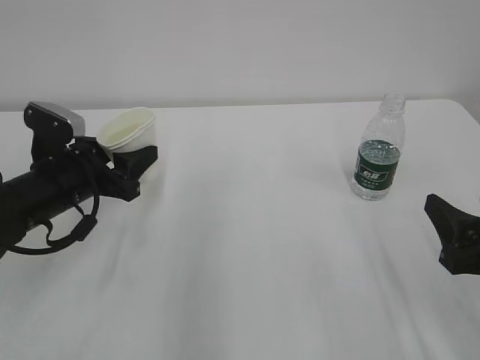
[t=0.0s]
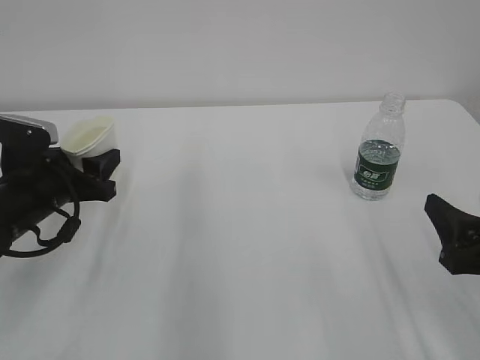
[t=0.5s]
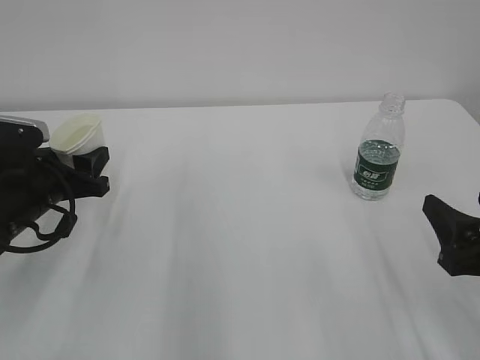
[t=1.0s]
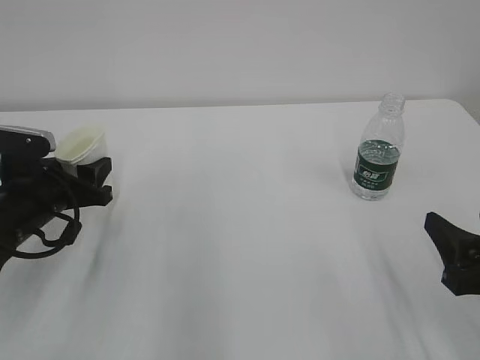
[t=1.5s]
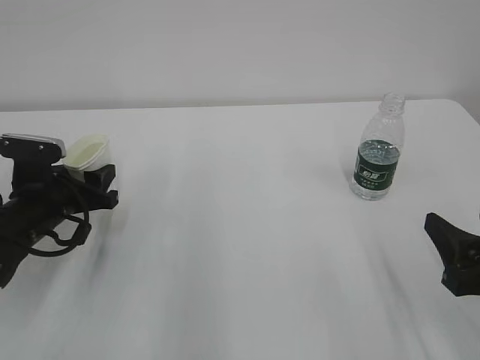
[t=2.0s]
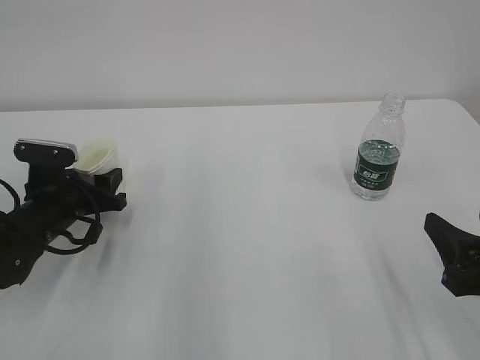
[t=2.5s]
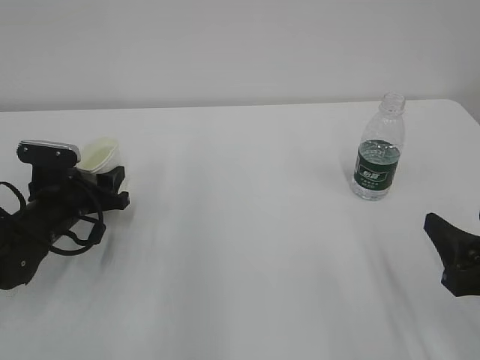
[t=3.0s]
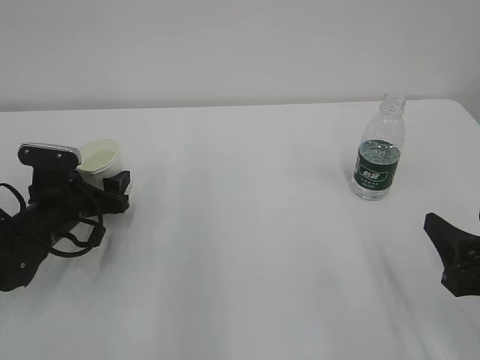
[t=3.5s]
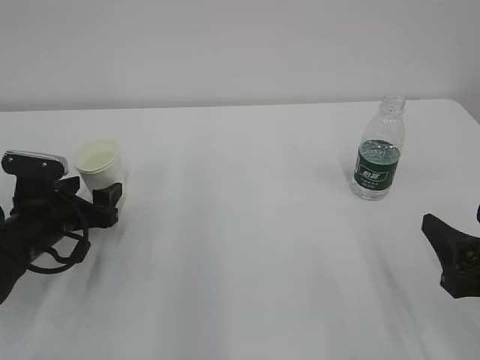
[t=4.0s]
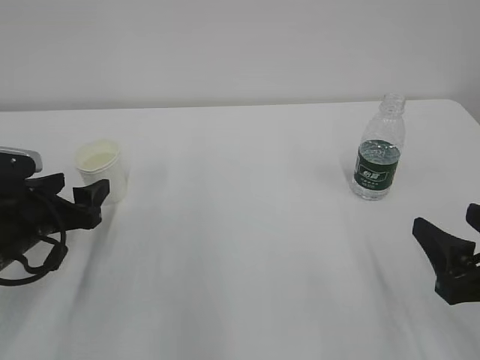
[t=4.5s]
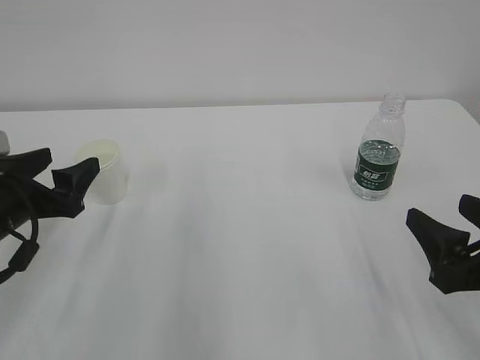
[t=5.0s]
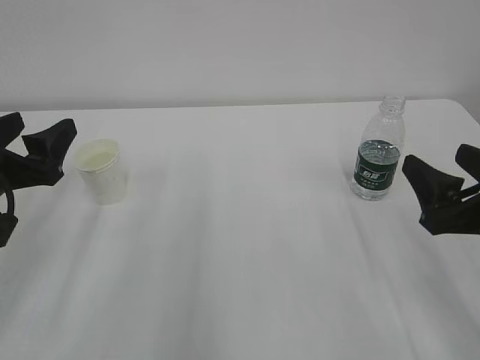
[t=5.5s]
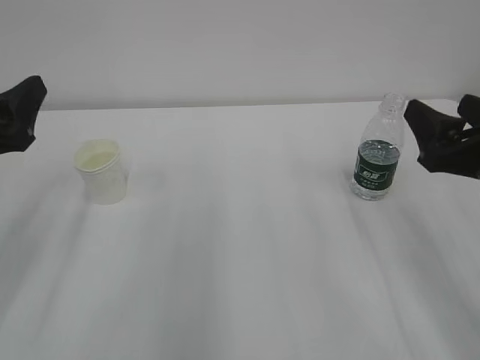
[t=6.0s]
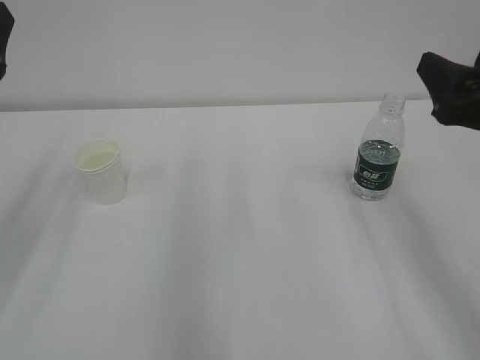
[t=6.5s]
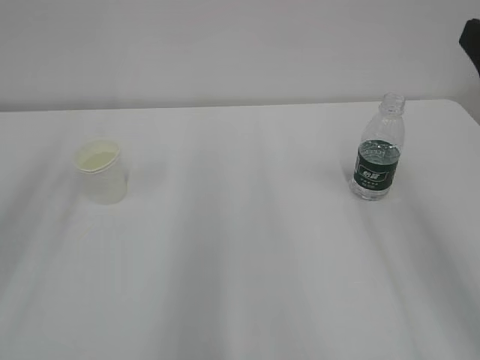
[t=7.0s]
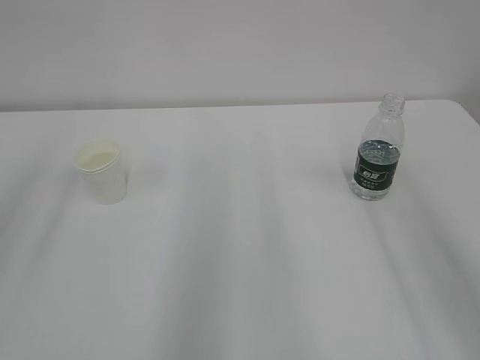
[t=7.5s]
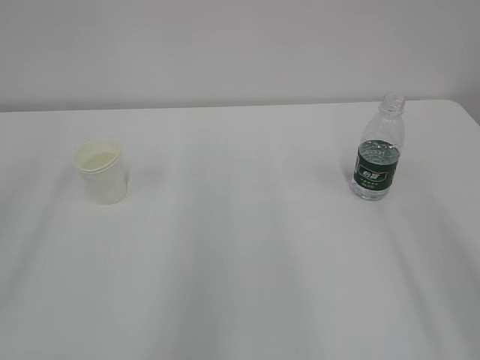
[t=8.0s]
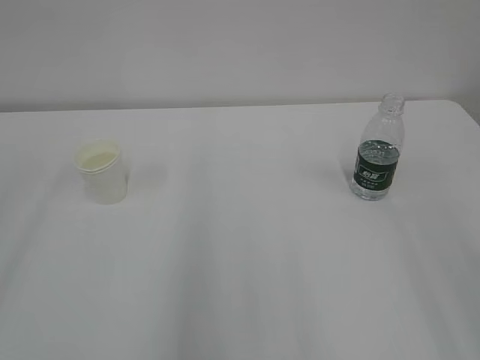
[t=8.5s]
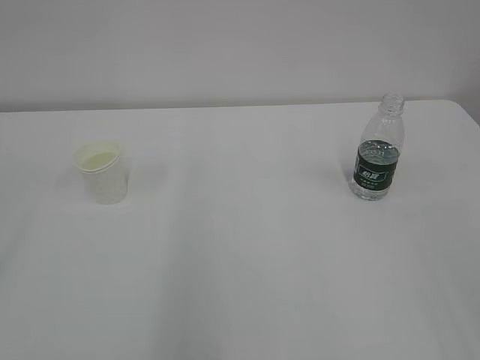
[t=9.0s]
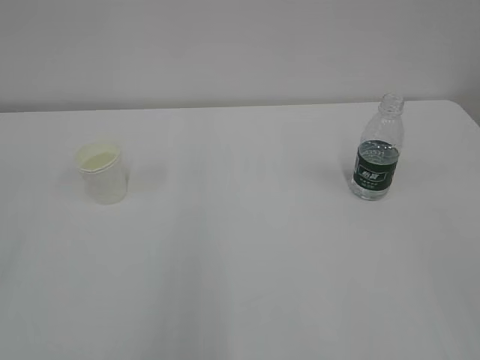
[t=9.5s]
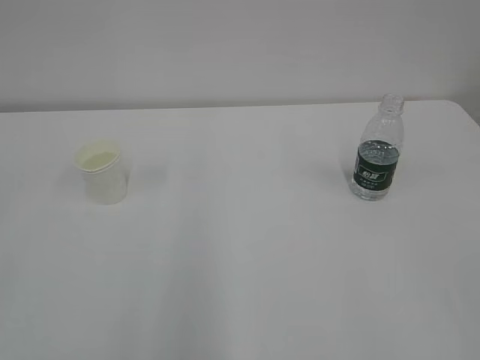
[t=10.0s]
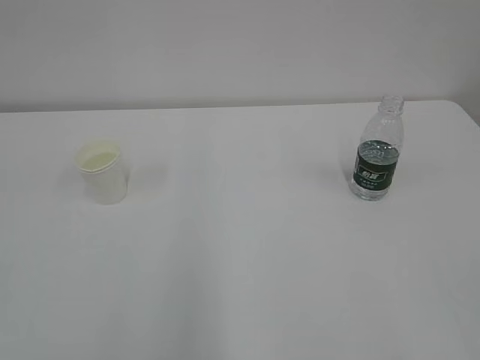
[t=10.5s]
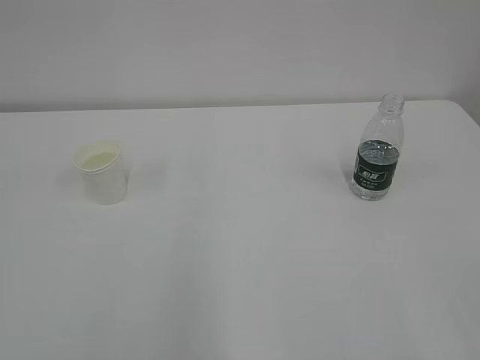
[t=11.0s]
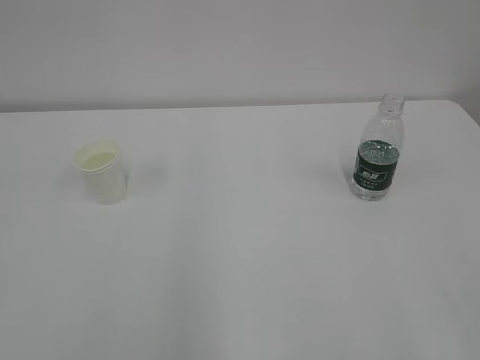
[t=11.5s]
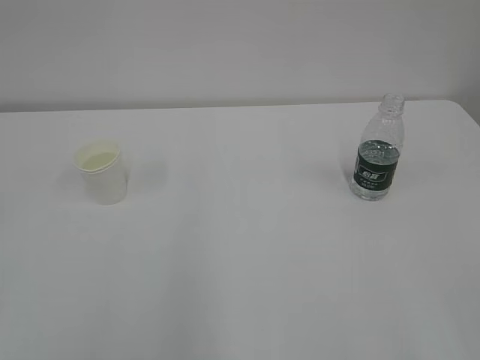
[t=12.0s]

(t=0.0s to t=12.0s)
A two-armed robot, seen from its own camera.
t=0.0s - t=2.0s: The left gripper ends up about 5 cm from where it was.
t=2.0s - t=4.0s: The left gripper opens.
t=4.0s - t=6.0s: The right gripper heads forward and upward, covering about 10 cm, while the left gripper travels upward and backward by about 15 cm.
t=6.0s - t=8.0s: The left gripper moves upward and backward, approximately 20 cm. Meanwhile the right gripper is displaced backward and upward by roughly 20 cm.

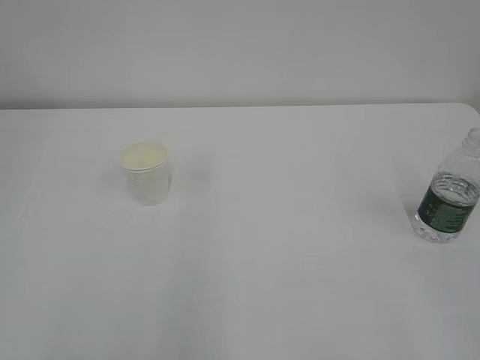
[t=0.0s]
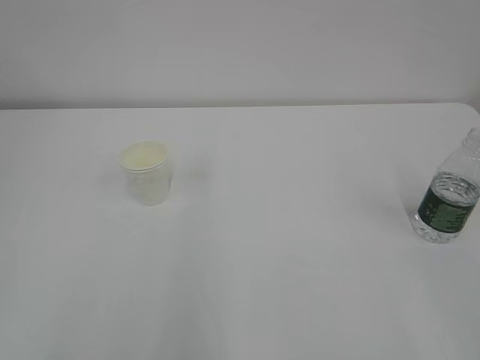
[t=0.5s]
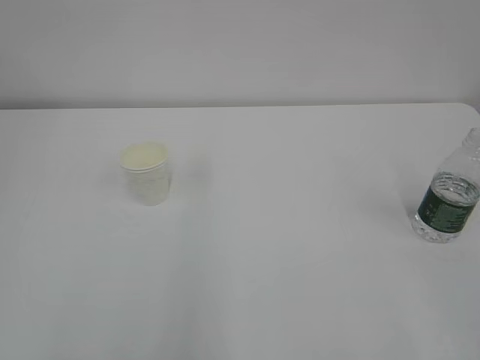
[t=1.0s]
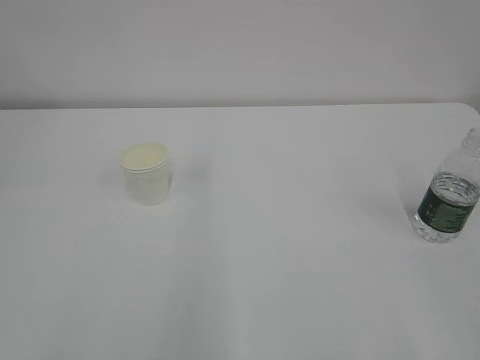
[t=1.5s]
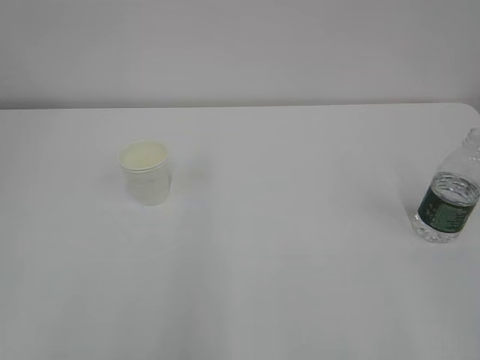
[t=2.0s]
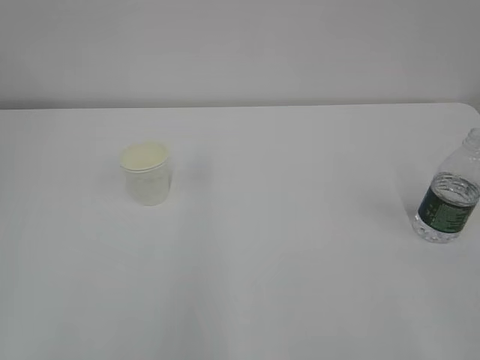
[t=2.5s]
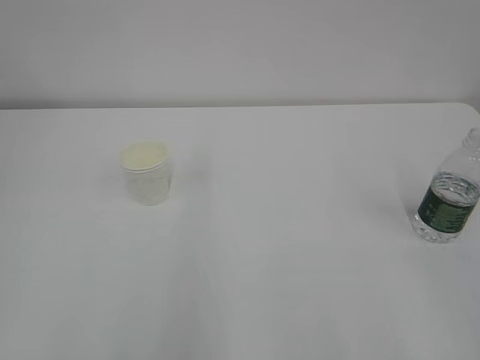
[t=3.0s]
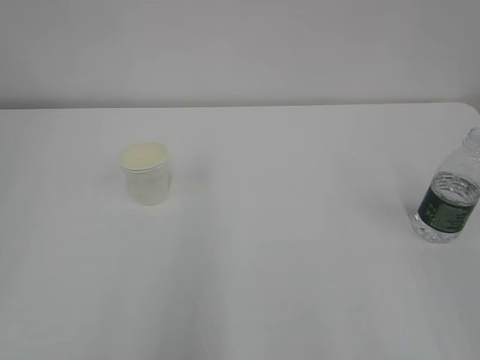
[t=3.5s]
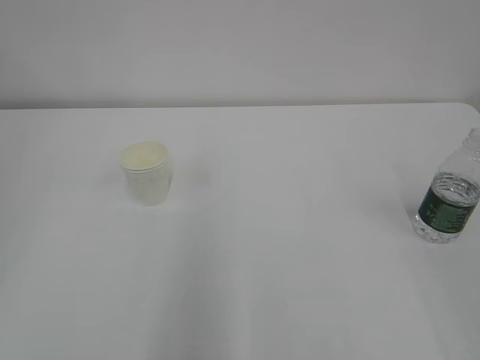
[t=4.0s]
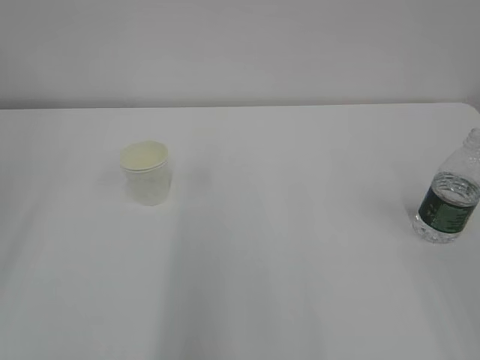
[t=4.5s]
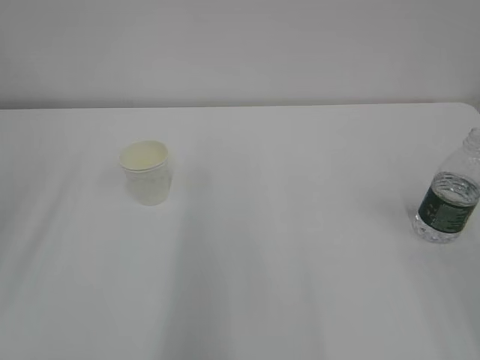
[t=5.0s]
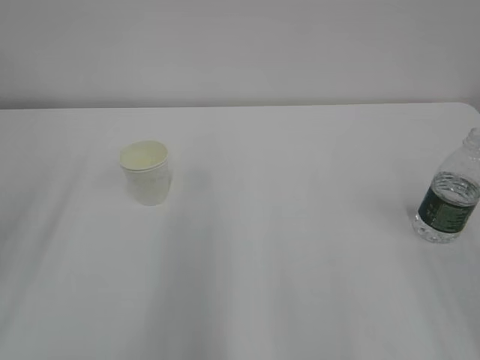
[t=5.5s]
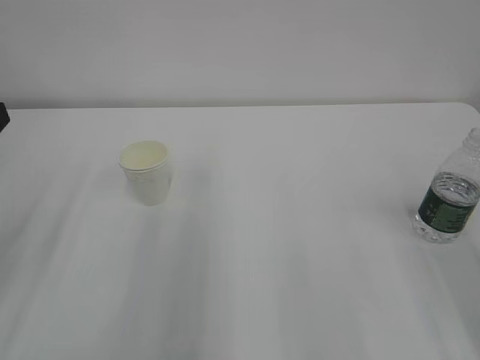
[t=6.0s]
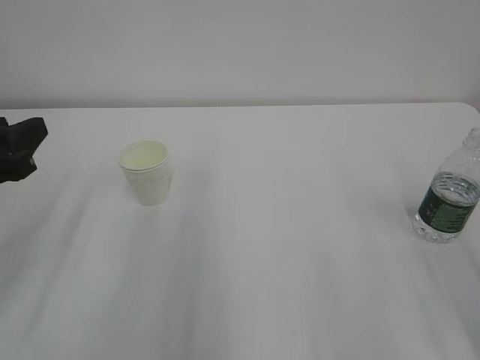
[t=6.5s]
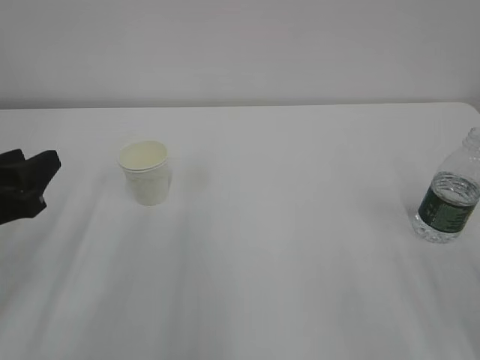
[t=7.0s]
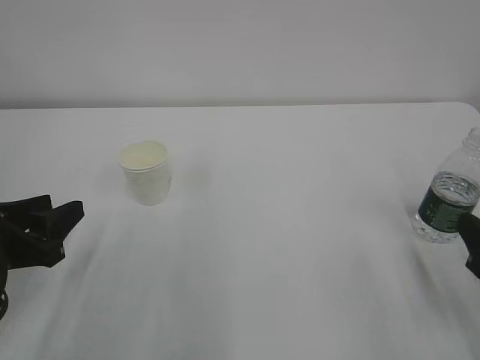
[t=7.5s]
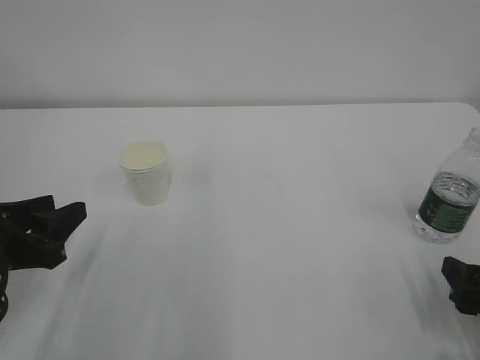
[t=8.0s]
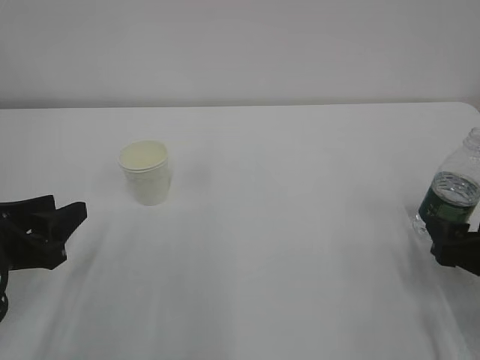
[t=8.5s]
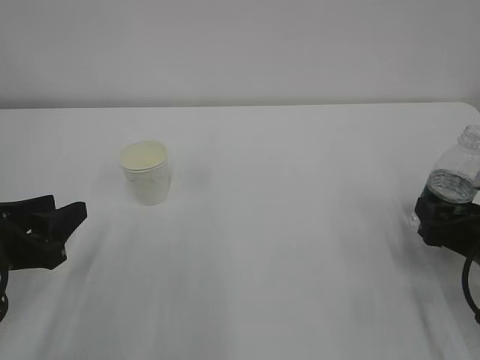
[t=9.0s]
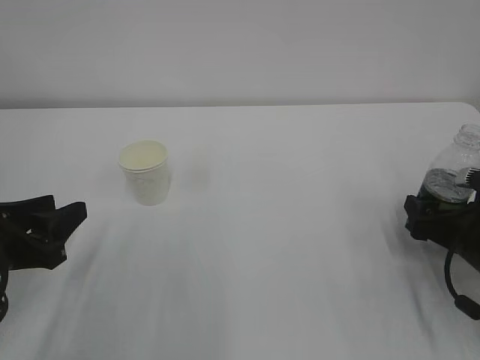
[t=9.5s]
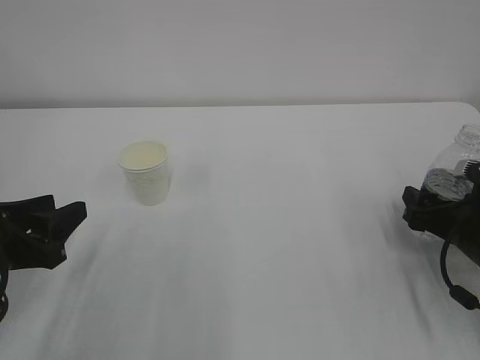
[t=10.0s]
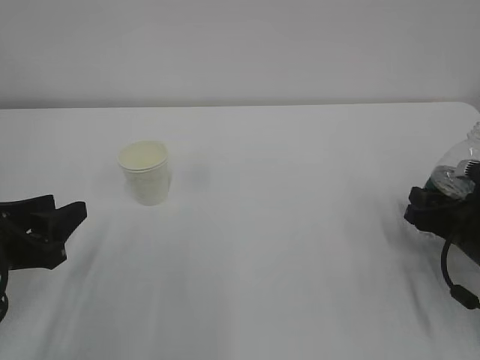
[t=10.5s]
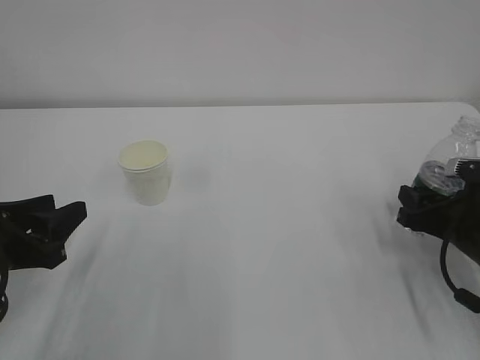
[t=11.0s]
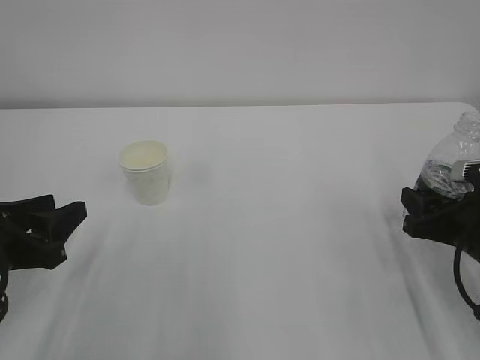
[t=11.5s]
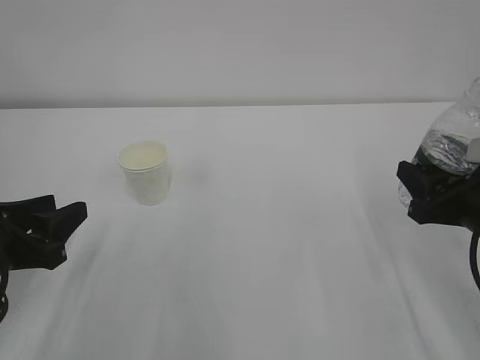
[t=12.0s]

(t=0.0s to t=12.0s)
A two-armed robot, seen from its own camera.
t=6.0s - t=8.0s: The left gripper travels downward by about 10 cm, while the right gripper is displaced downward by some 20 cm, and closes, then opens again.
t=8.0s - t=10.0s: The right gripper travels forward by approximately 10 cm.
t=10.0s - t=12.0s: The right gripper goes about 5 cm upward, and closes up.

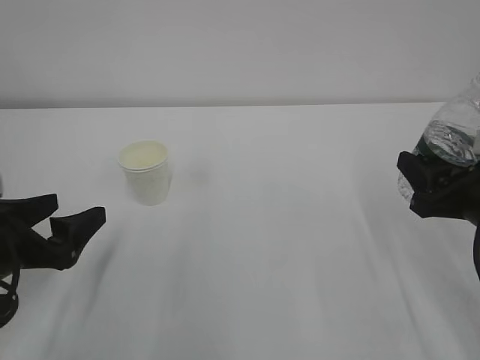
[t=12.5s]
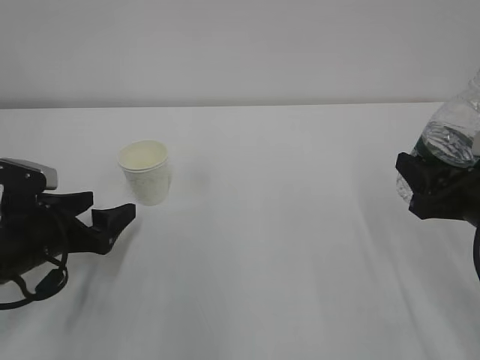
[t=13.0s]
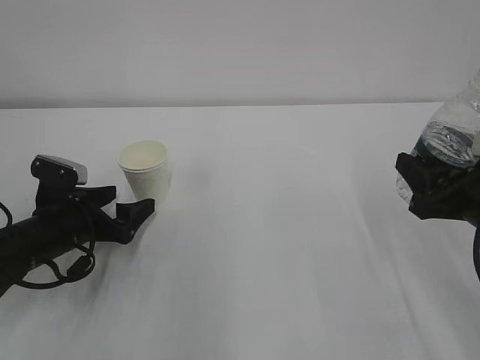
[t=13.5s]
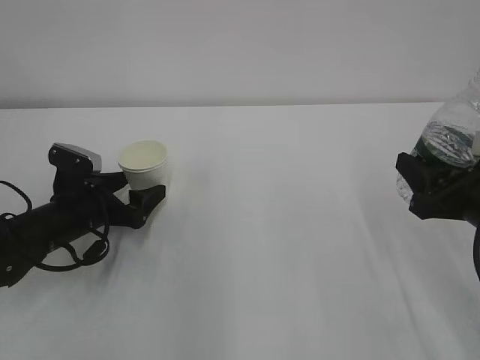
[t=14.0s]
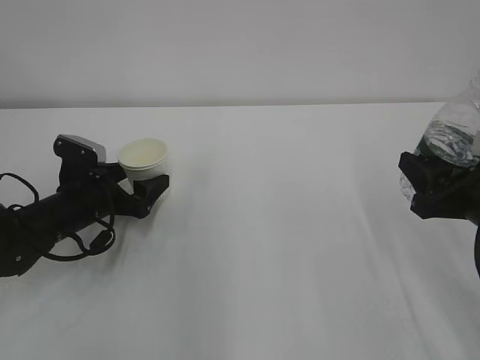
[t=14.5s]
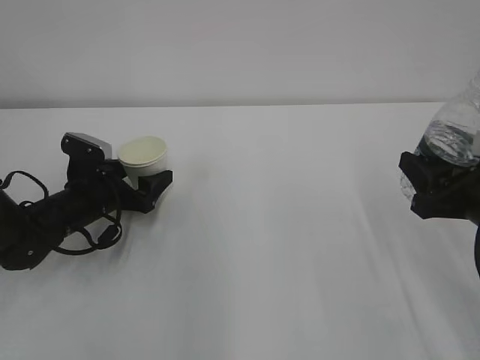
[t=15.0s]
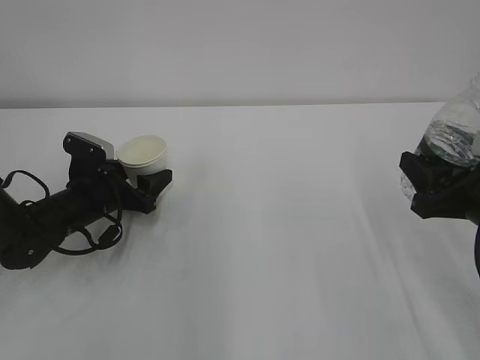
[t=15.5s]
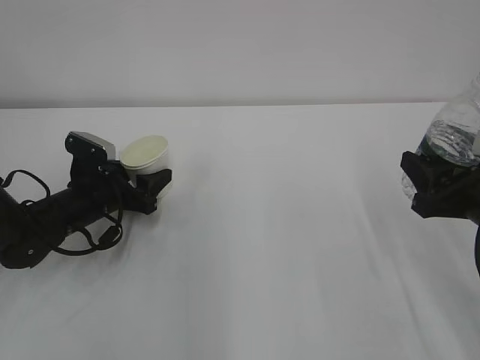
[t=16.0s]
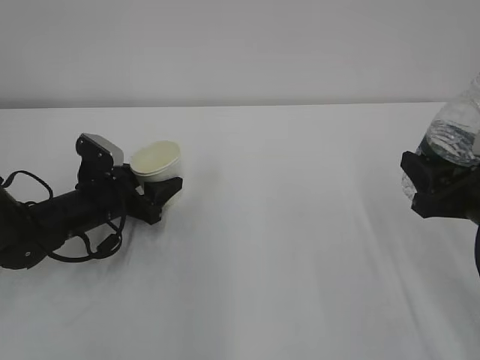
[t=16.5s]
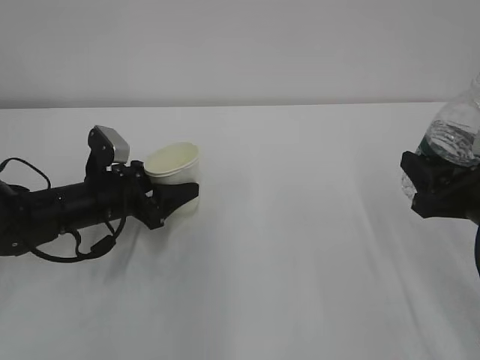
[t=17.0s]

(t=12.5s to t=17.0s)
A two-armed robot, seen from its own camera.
t=12.5s - t=14.5s: The left gripper shifts roughly 15 cm forward and downward.
t=14.5s - t=17.0s: The left gripper closes its fingers.
